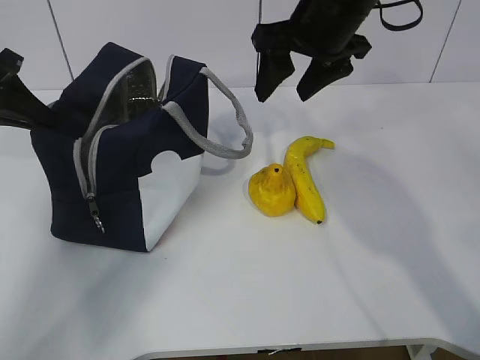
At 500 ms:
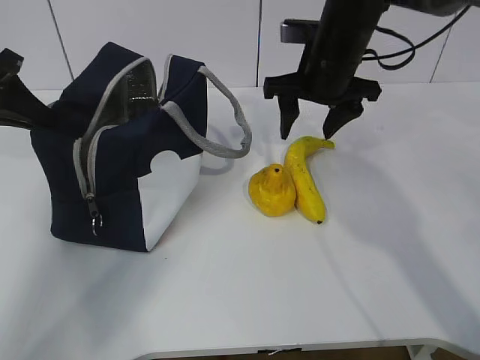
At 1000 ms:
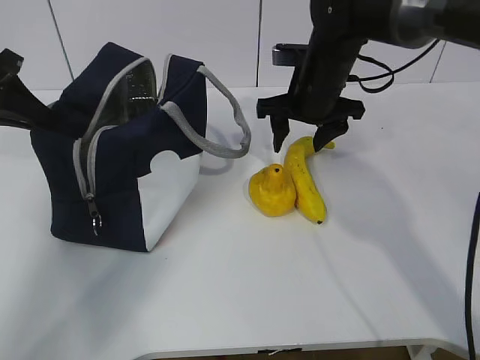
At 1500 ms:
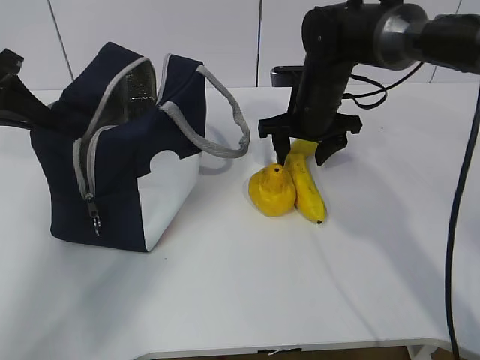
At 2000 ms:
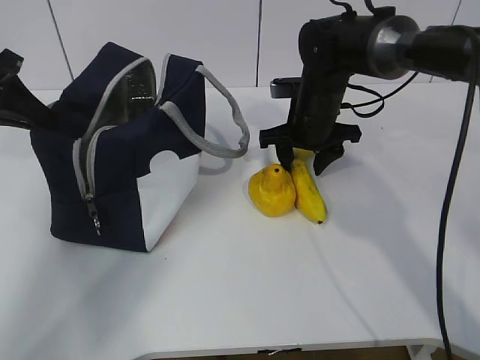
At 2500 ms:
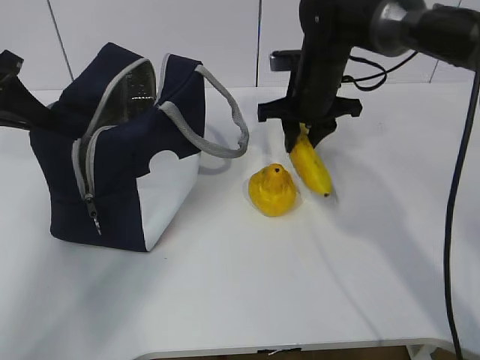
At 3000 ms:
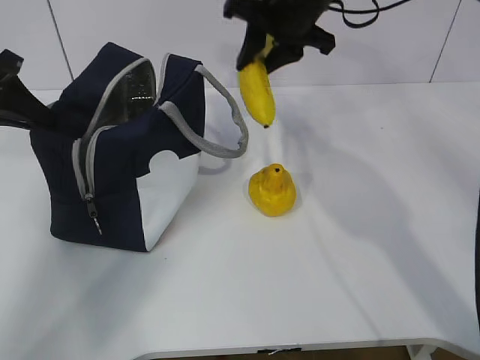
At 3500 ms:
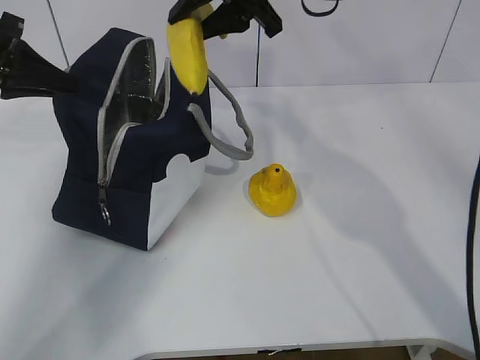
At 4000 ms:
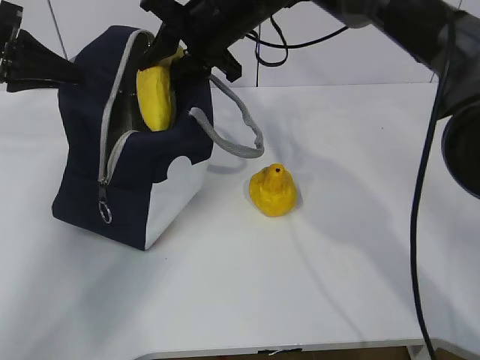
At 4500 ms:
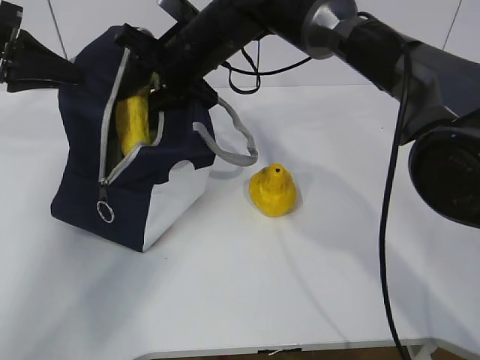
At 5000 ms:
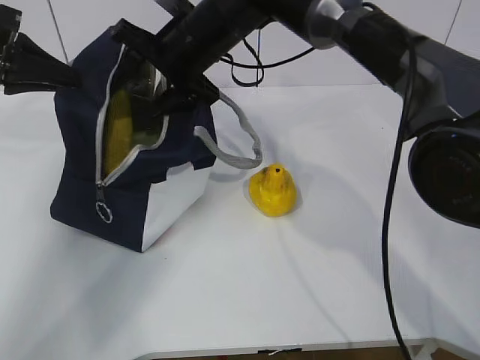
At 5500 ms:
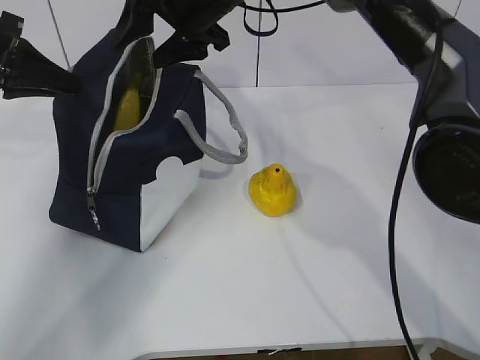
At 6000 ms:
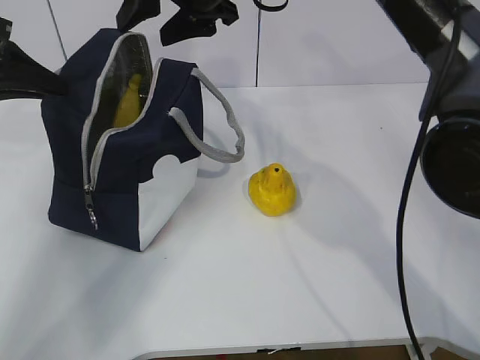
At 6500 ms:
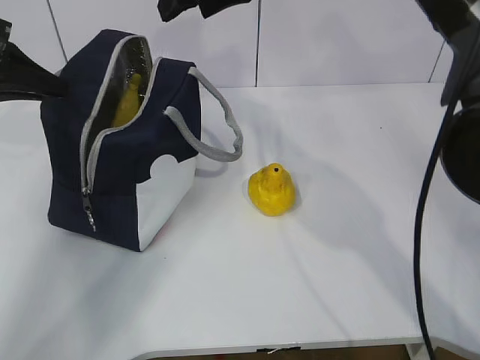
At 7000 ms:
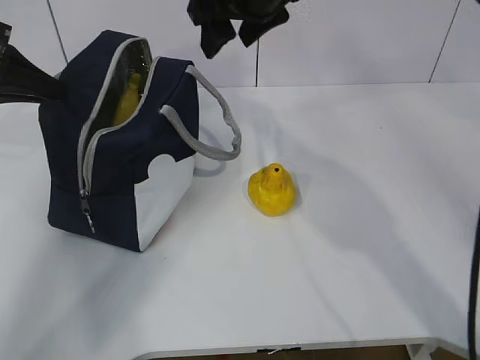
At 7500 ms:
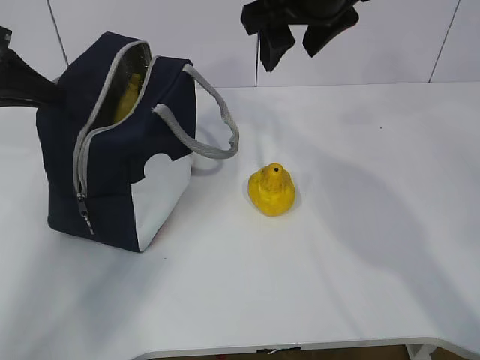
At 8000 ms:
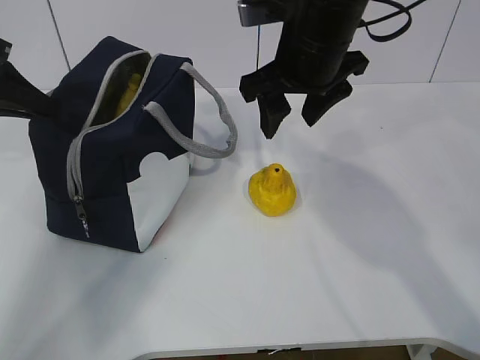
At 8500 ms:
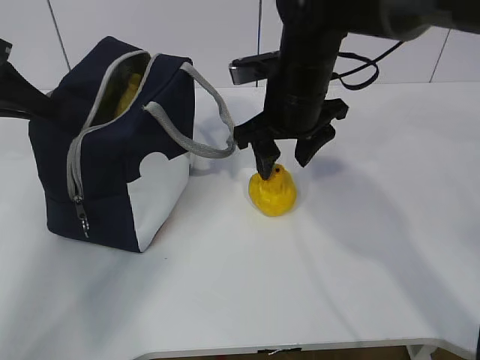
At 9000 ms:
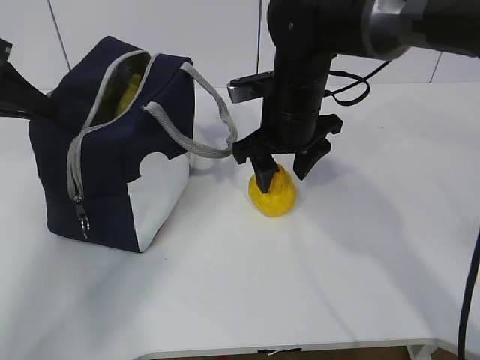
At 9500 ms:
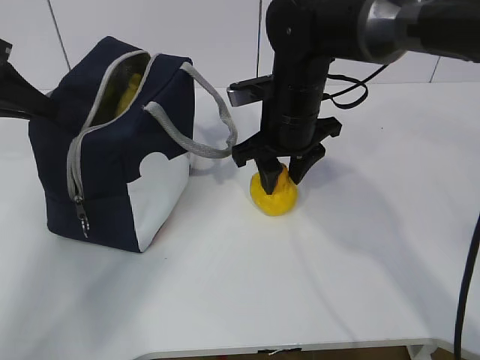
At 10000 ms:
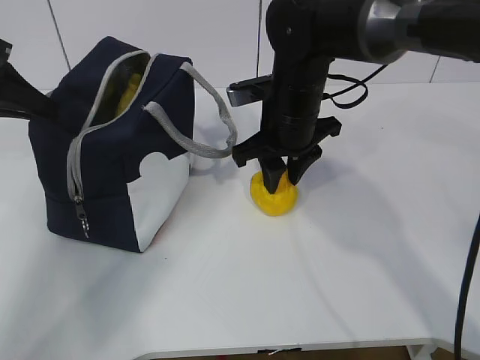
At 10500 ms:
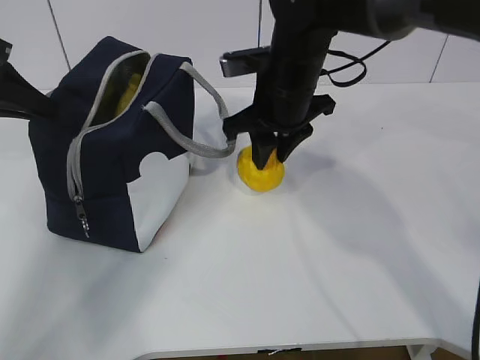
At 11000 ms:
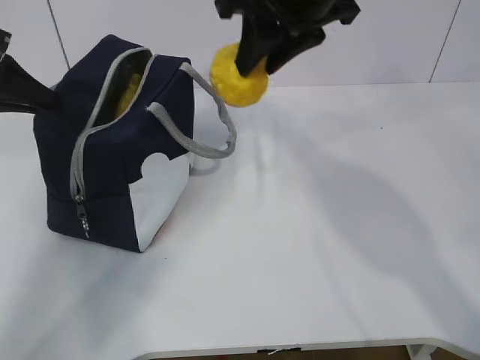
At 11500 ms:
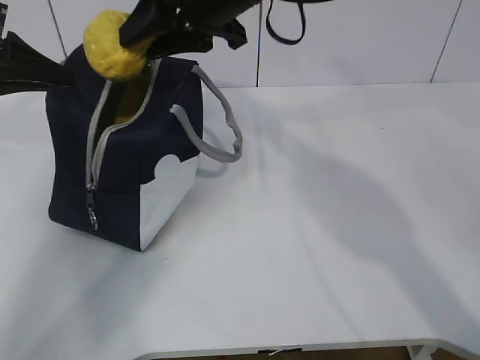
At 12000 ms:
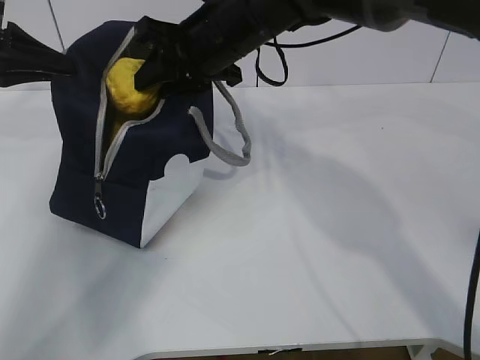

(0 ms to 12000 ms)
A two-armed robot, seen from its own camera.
Step, 0 ms - 2000 ms: Grasp the banana with the right gripper.
Step, 2500 ms - 5000 ms: Place the banana into the package with the right gripper.
Step, 5500 ms - 9500 ms: Grasp the pear with the right gripper.
0 ms - 2000 ms: The right gripper is displaced downward by approximately 15 cm.
2000 ms - 4000 ms: The right gripper travels upward and to the left by roughly 15 cm, and closes up.
4000 ms - 6000 ms: The right gripper travels upward by roughly 5 cm, and opens its fingers.
6000 ms - 8000 ms: The right gripper heads to the right and backward, covering some 10 cm.
8000 ms - 10000 ms: The right gripper moves downward, some 10 cm, and closes up.
10000 ms - 12000 ms: The right gripper goes roughly 10 cm upward and to the left.

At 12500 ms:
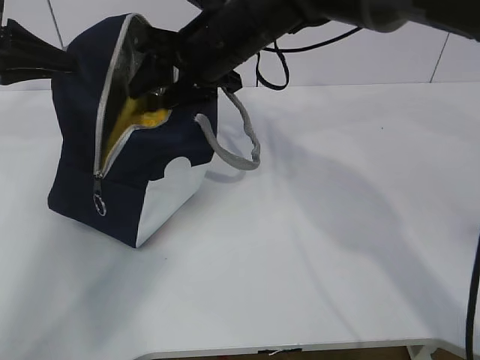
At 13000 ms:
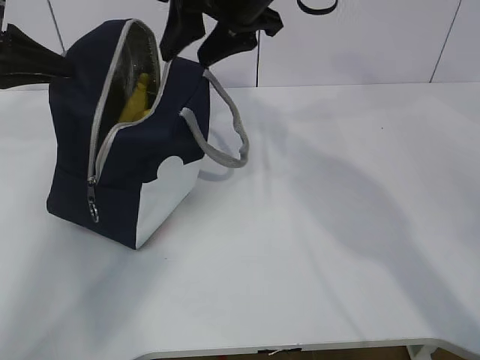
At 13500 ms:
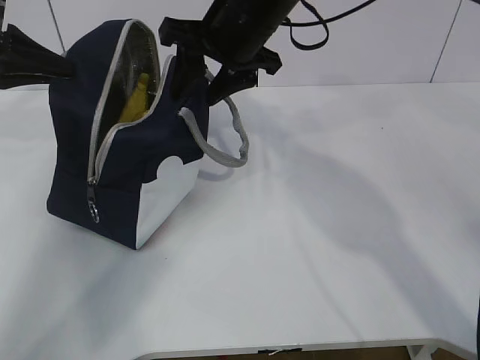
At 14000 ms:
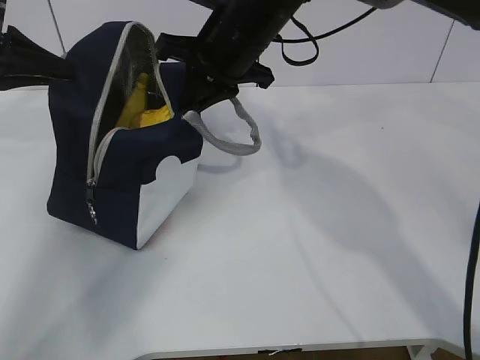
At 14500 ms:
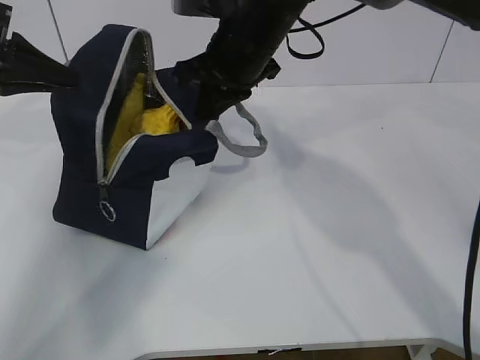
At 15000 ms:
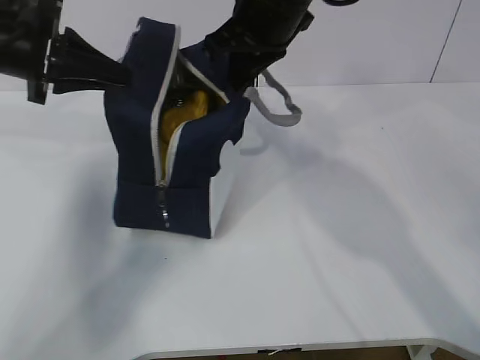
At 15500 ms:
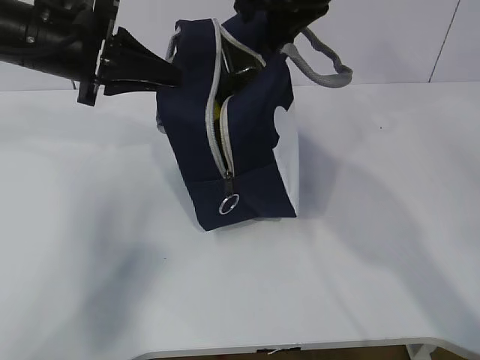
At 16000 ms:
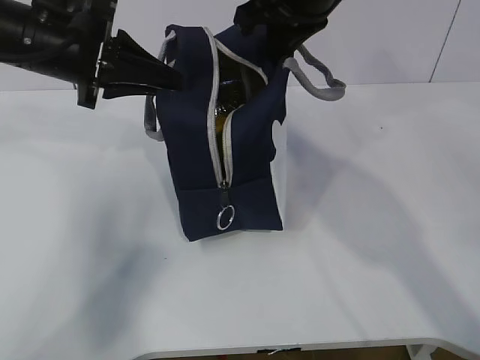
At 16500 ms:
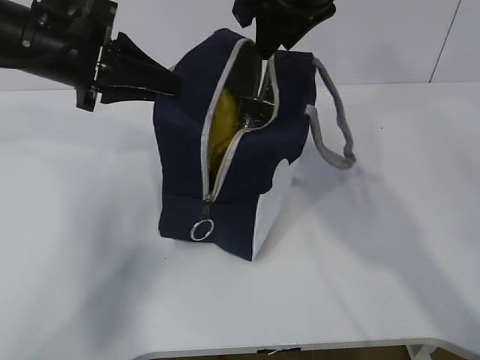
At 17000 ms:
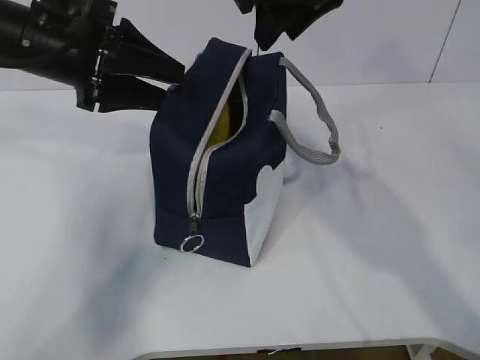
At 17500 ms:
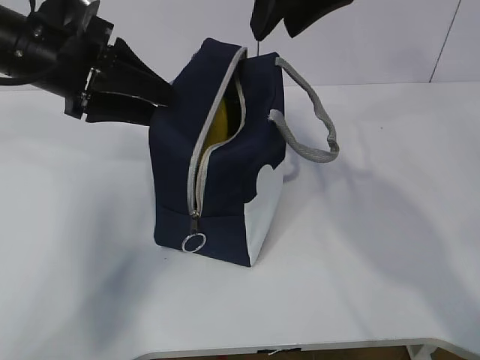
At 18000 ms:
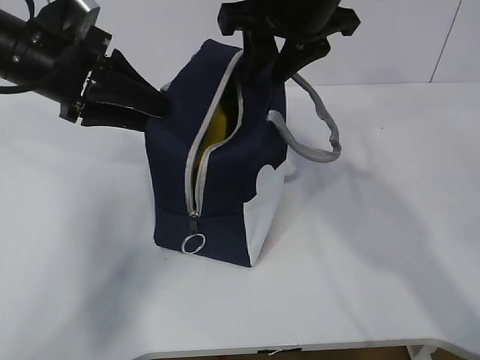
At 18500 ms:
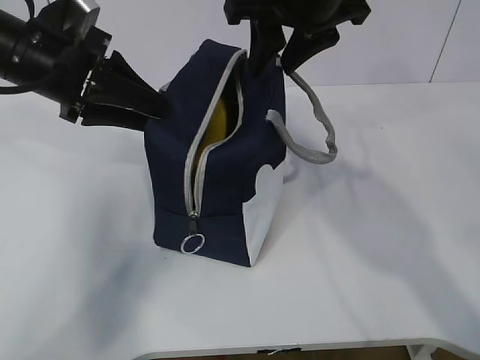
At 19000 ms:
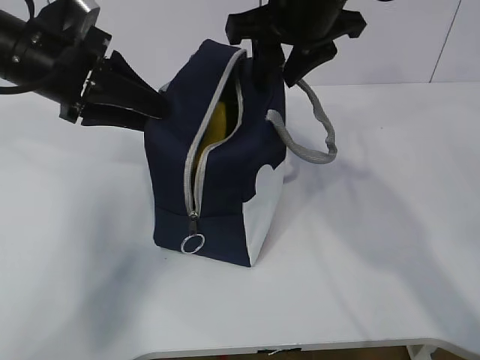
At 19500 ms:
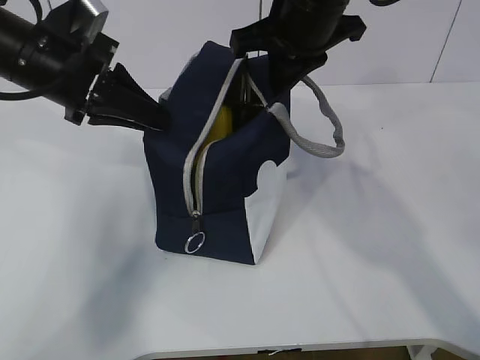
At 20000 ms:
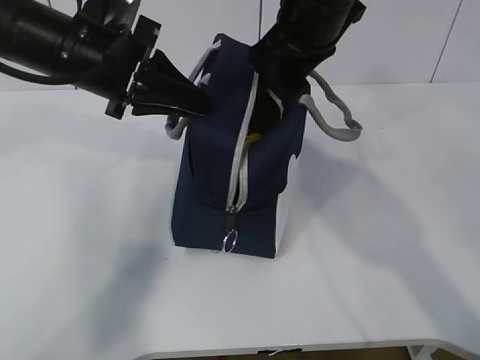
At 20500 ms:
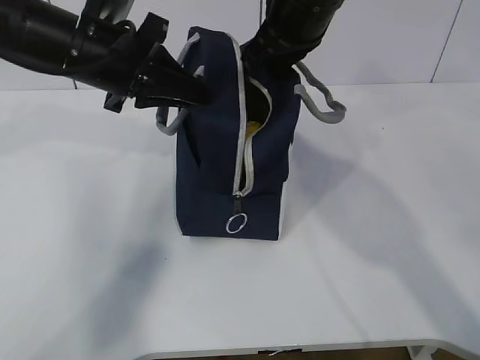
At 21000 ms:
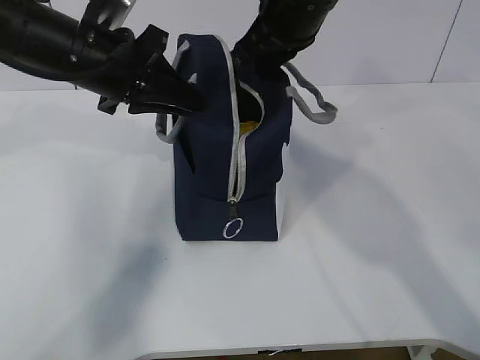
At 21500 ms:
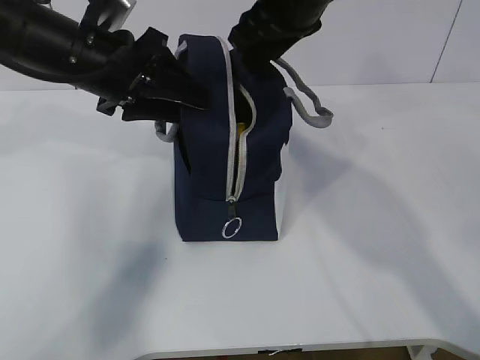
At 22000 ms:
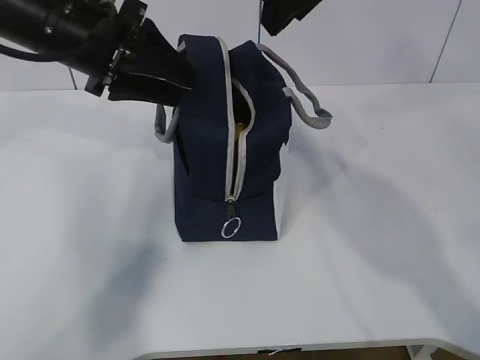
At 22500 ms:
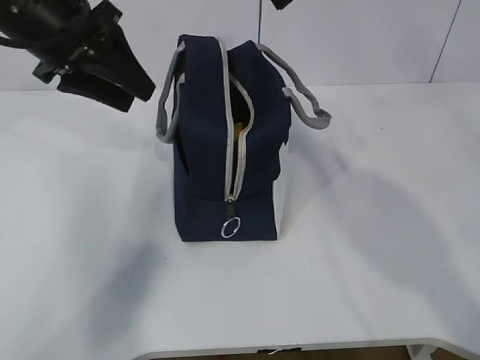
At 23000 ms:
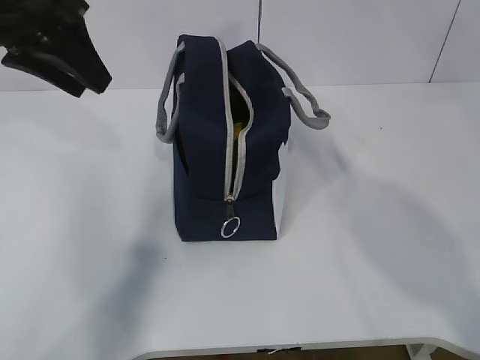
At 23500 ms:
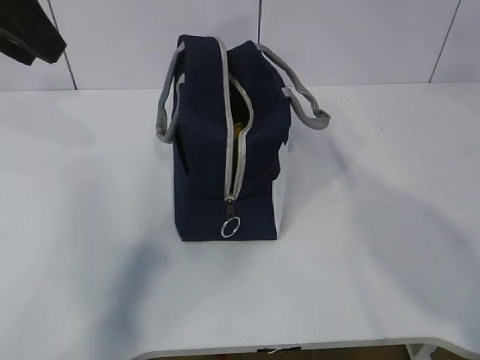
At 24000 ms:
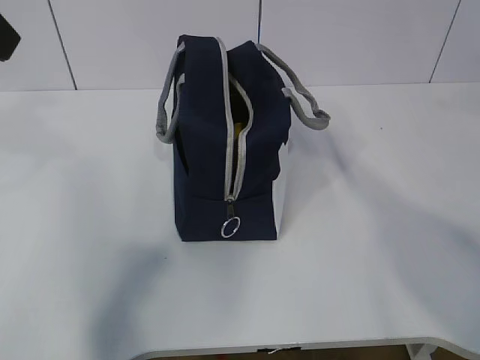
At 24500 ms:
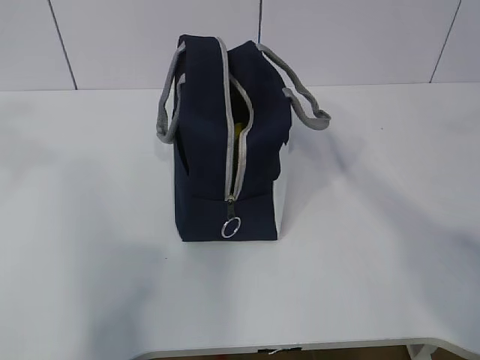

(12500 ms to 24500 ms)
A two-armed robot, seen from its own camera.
12500 ms - 14500 ms: The right gripper closes up.
14500 ms - 16500 ms: The right gripper travels upward and to the right by approximately 10 cm, and opens its fingers. Meanwhile the left gripper heads to the right, covering roughly 10 cm.
16500 ms - 18500 ms: The left gripper opens up.
18500 ms - 20500 ms: The right gripper closes. Meanwhile the left gripper closes its fingers.
20500 ms - 22500 ms: The left gripper changes place by approximately 5 cm, and opens its fingers, while the right gripper is displaced upward and backward by about 10 cm, and opens up.
22500 ms - 24500 ms: The right gripper is displaced backward and to the right by about 15 cm. Meanwhile the left gripper goes about 20 cm backward and upward.

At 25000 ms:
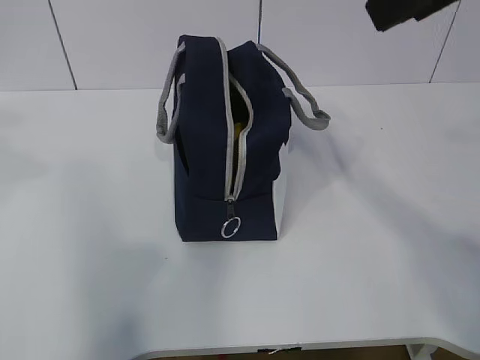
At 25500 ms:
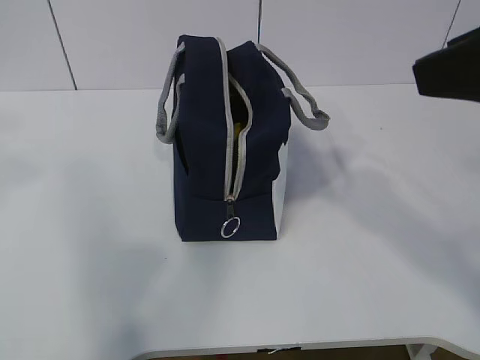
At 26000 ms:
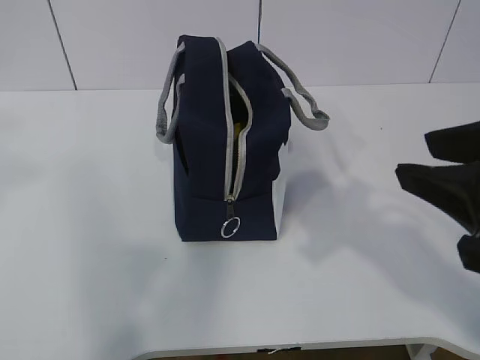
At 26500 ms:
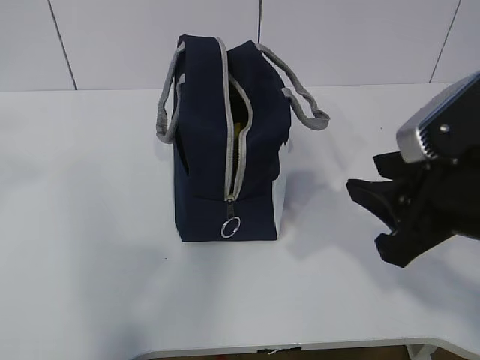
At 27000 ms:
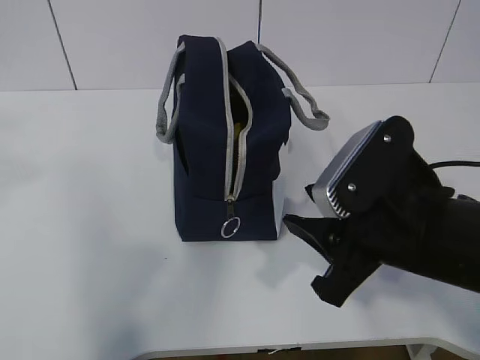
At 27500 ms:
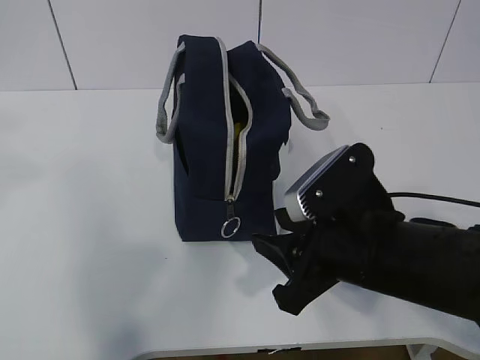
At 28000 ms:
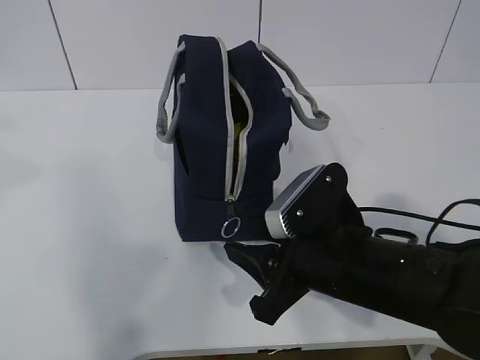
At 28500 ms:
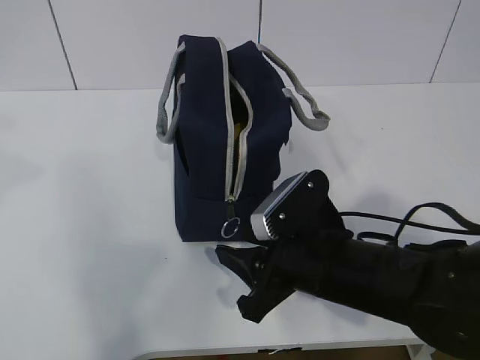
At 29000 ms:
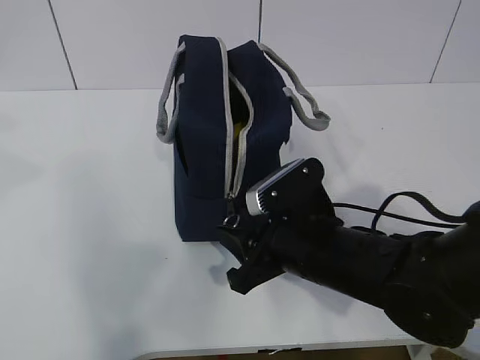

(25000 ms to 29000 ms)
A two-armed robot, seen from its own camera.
25000 ms - 27000 ms: The right gripper is displaced downward by some 25 cm.
27000 ms - 29000 ms: The right gripper goes approximately 10 cm downward, forward and to the left.
